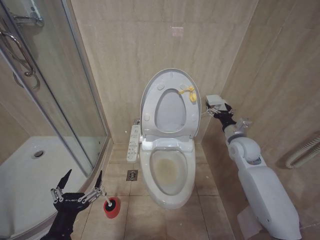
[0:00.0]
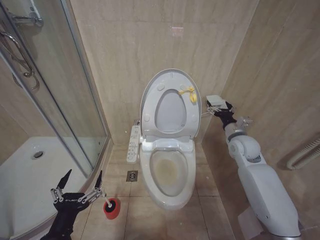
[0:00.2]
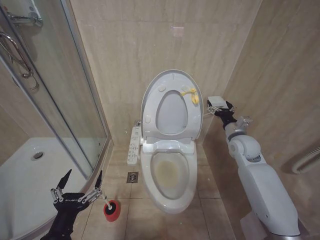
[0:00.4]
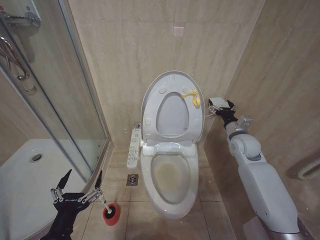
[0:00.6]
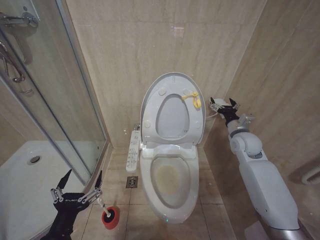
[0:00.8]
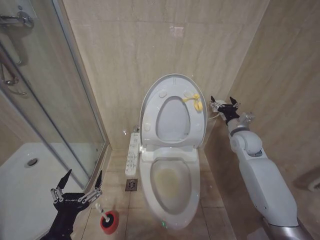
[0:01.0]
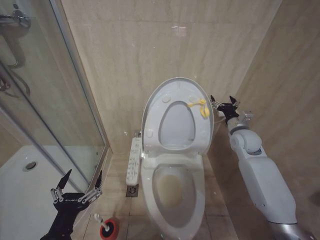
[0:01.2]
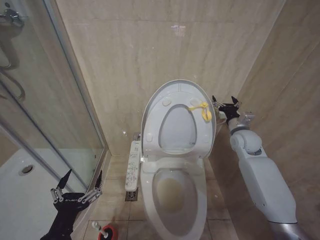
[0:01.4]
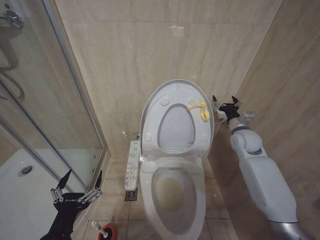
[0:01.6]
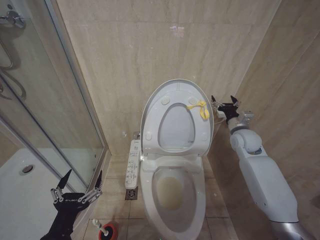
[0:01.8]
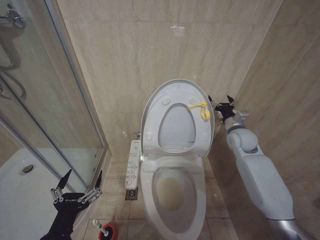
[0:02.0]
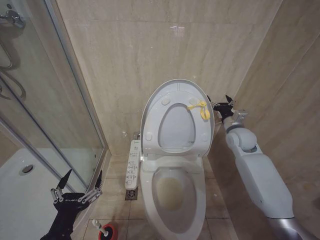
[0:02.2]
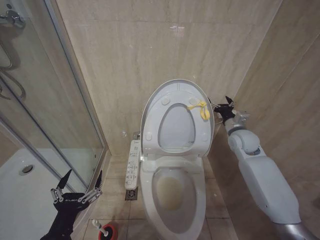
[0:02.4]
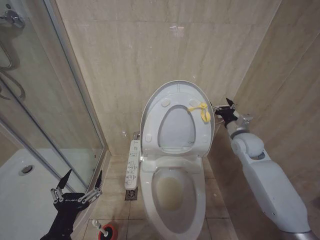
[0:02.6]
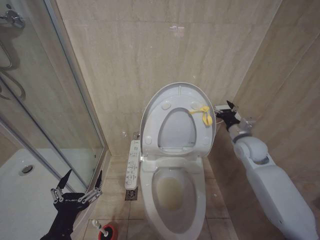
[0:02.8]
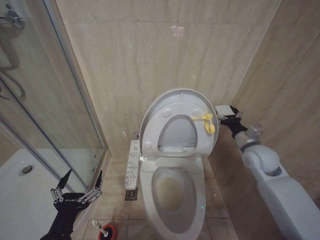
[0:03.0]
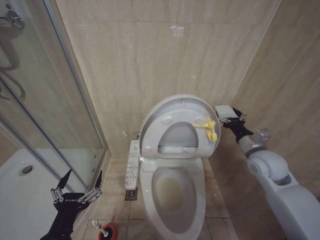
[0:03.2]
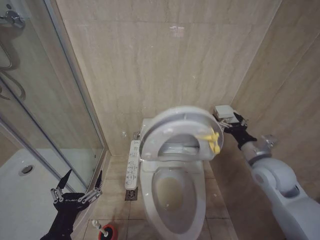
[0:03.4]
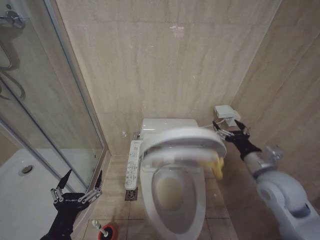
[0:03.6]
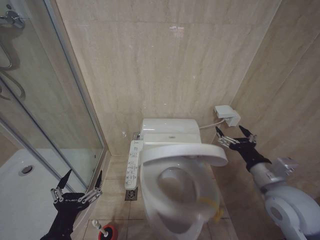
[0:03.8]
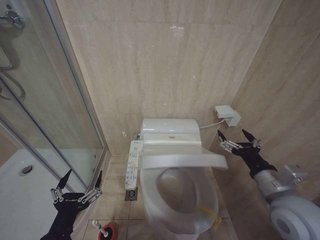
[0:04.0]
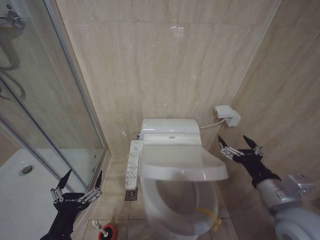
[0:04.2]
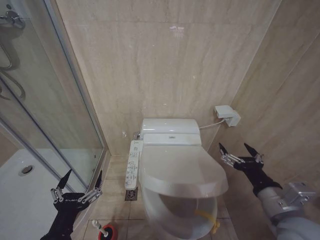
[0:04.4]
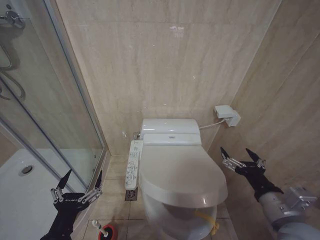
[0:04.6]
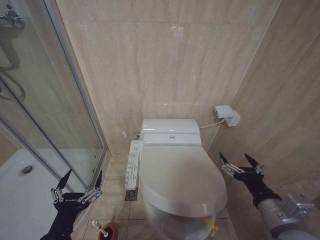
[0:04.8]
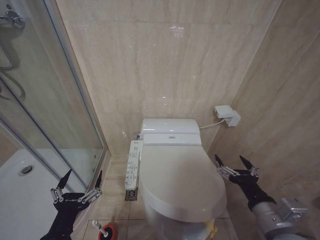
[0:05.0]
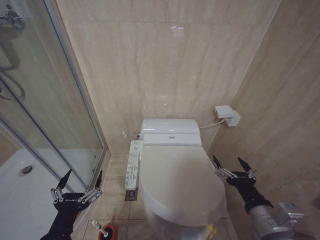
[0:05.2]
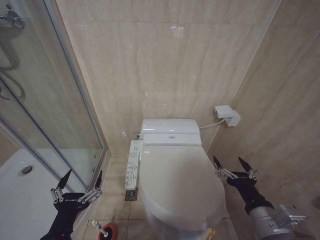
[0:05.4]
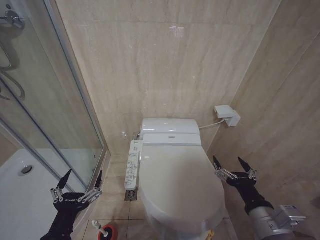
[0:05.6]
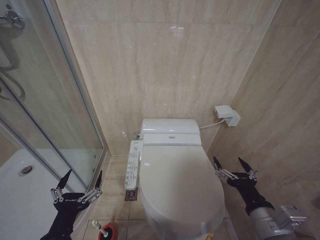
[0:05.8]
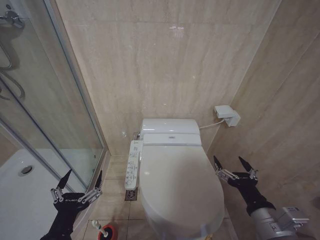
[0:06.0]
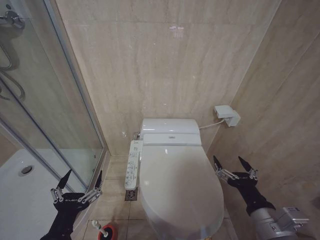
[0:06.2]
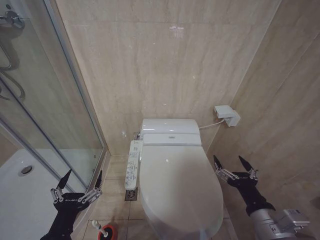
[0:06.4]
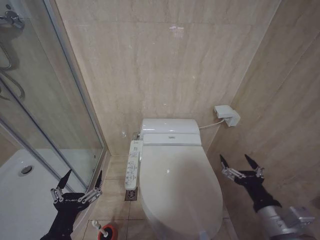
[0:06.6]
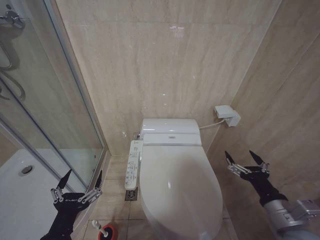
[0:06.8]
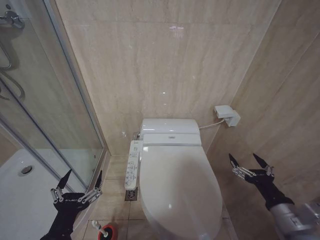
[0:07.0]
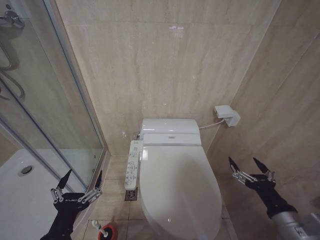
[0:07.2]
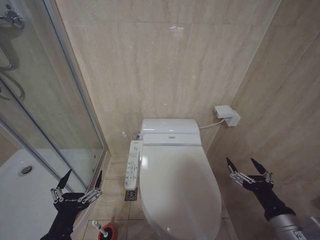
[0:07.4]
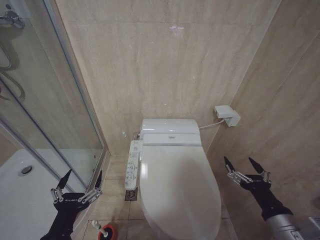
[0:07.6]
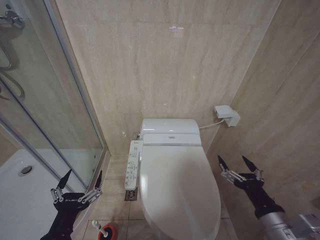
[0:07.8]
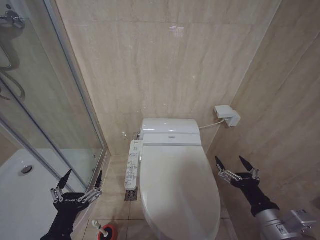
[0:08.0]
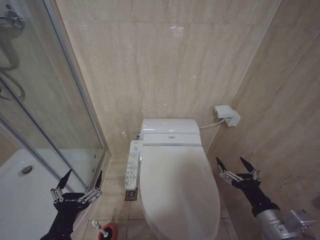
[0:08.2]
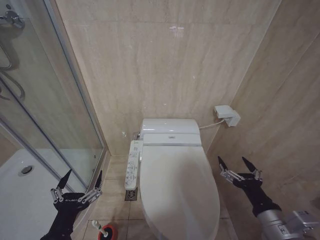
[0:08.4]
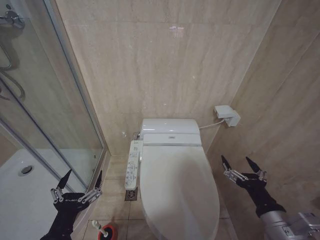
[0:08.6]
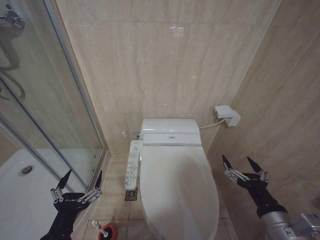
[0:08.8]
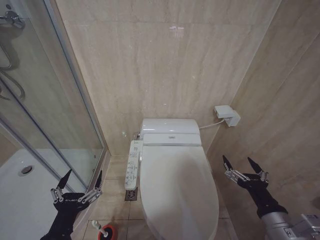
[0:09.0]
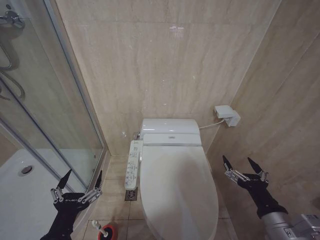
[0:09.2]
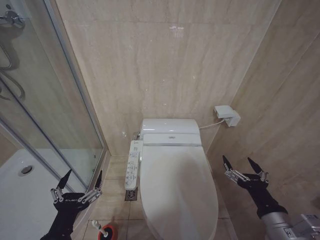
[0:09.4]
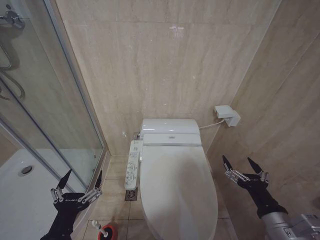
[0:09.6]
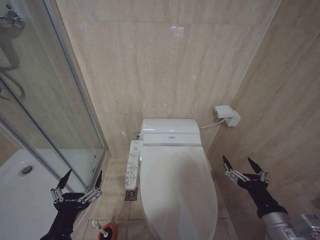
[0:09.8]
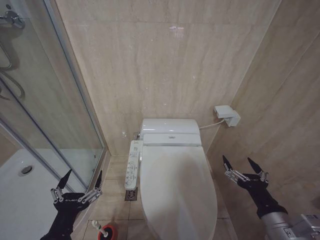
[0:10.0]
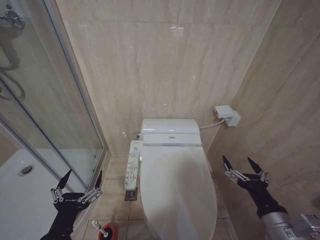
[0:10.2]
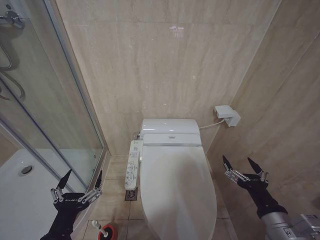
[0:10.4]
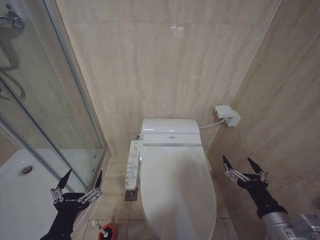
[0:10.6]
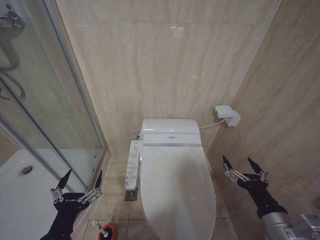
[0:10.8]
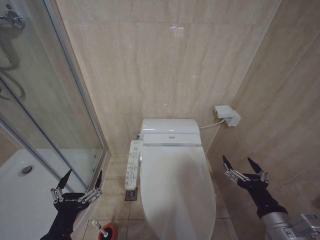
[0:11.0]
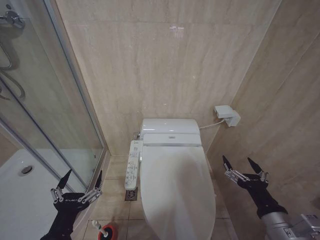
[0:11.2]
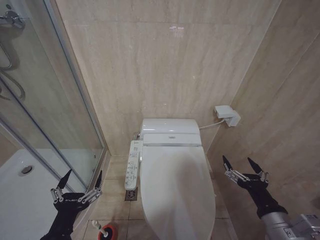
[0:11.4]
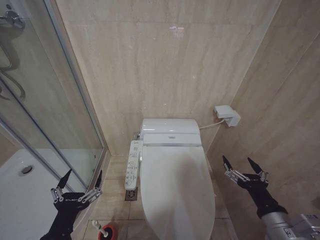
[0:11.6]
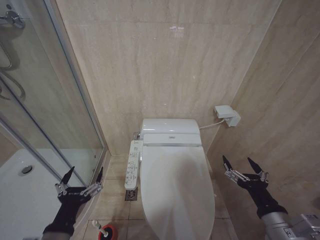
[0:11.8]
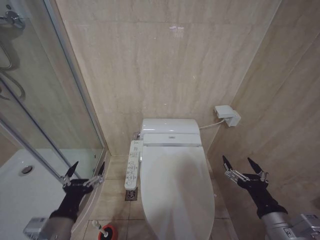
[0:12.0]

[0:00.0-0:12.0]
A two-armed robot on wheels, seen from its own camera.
Task of the whole recording: Open the toilet lid, clean the toilet bowl with a toilet brush, close the toilet lid, and flush.
0:01.6 to 0:03.0: The right gripper travels backward by roughly 5 cm.
0:03.0 to 0:04.4: The right gripper travels backward by some 20 cm.
0:04.4 to 0:06.0: The right gripper shifts by roughly 5 cm.
0:07.6 to 0:09.0: The grippers stay close to where they were, moving slightly.
0:09.0 to 0:10.4: Both grippers stay put.
0:10.4 to 0:12.0: The grippers make only small movements.

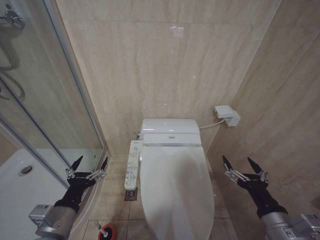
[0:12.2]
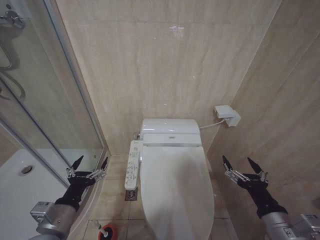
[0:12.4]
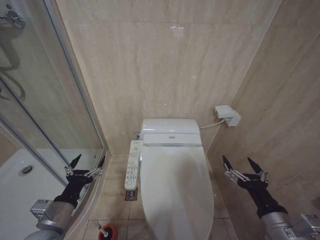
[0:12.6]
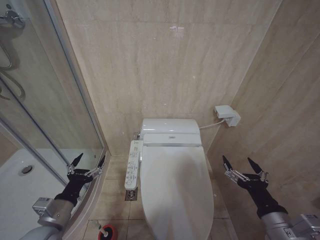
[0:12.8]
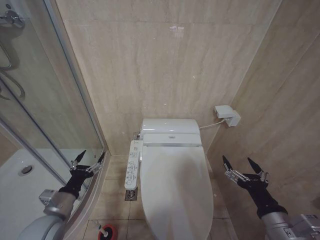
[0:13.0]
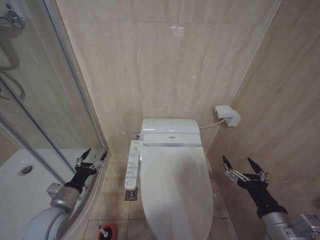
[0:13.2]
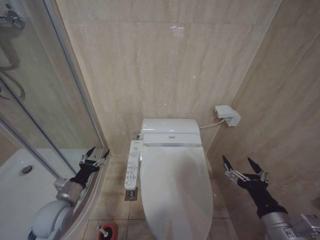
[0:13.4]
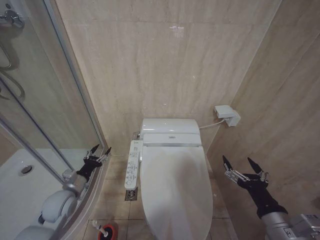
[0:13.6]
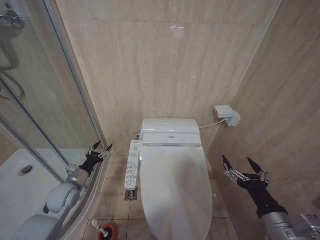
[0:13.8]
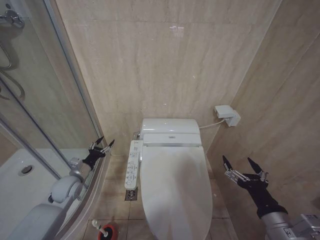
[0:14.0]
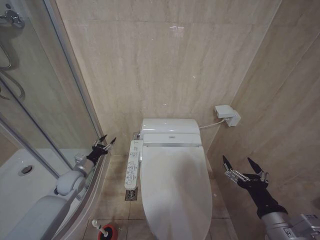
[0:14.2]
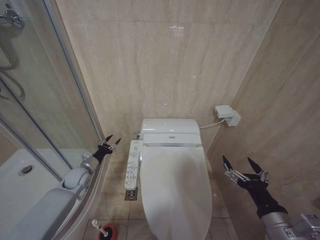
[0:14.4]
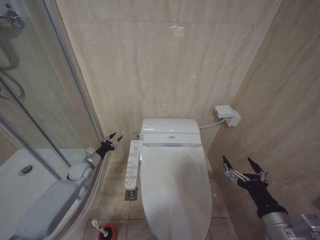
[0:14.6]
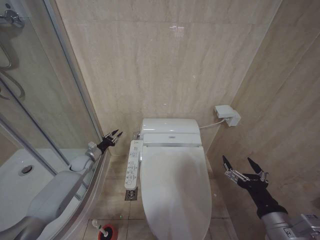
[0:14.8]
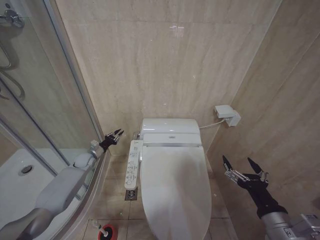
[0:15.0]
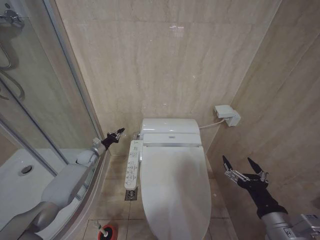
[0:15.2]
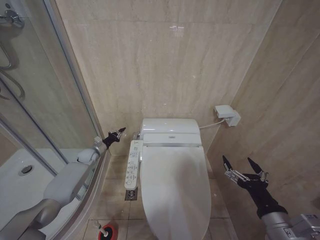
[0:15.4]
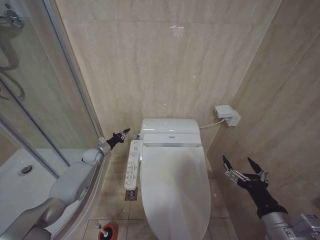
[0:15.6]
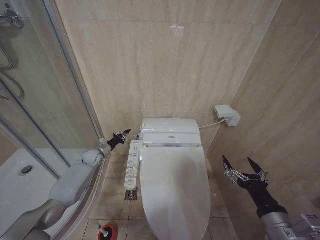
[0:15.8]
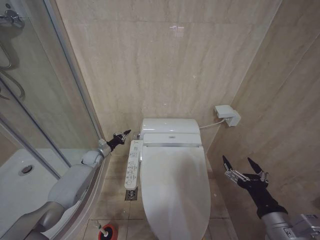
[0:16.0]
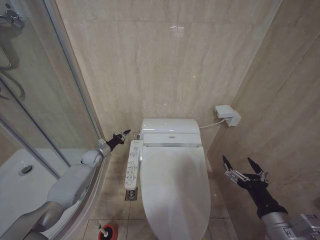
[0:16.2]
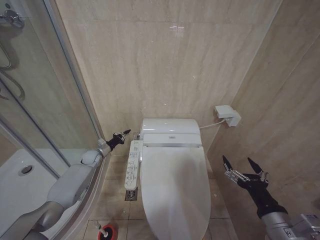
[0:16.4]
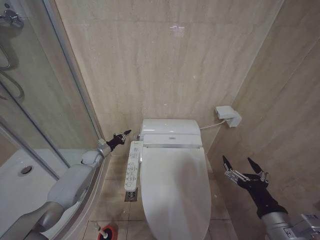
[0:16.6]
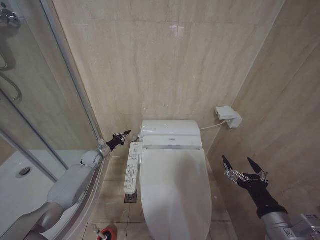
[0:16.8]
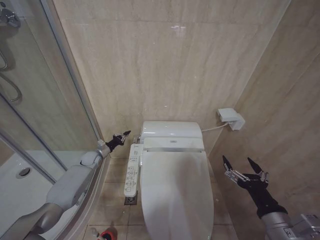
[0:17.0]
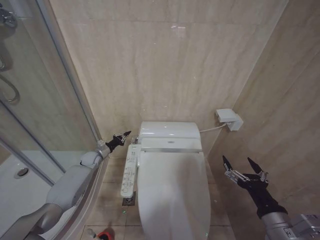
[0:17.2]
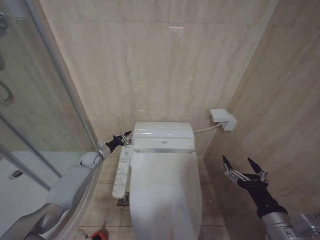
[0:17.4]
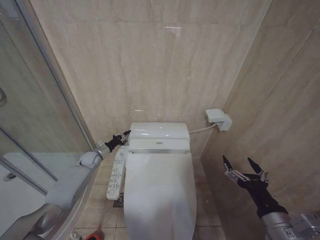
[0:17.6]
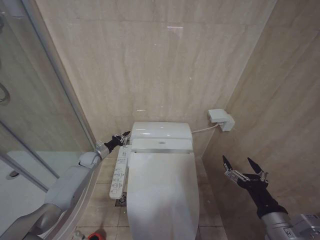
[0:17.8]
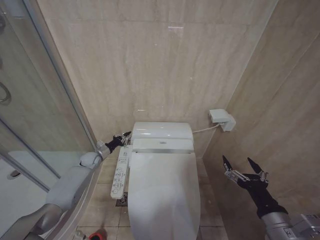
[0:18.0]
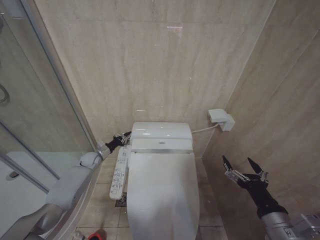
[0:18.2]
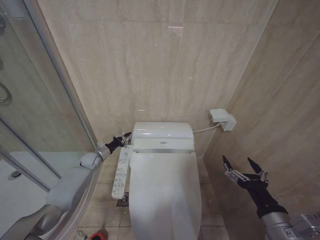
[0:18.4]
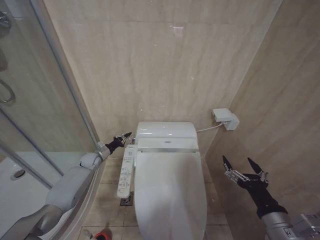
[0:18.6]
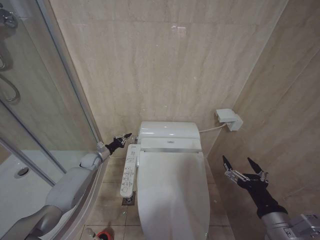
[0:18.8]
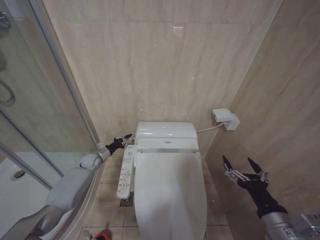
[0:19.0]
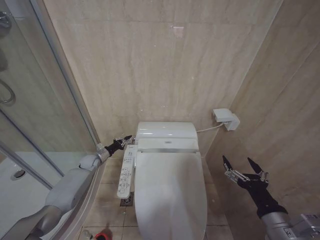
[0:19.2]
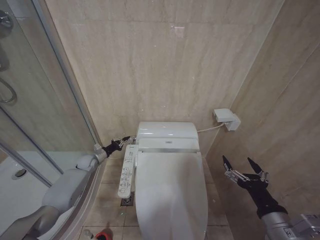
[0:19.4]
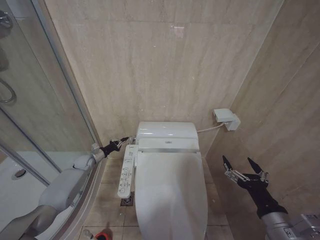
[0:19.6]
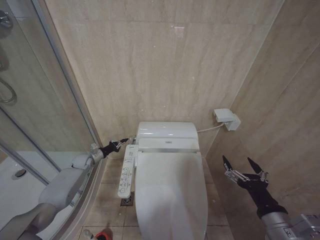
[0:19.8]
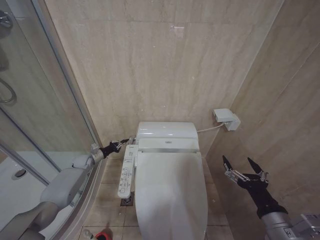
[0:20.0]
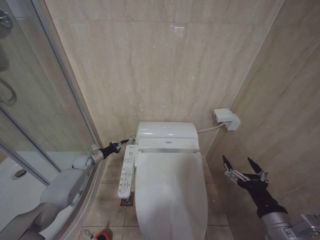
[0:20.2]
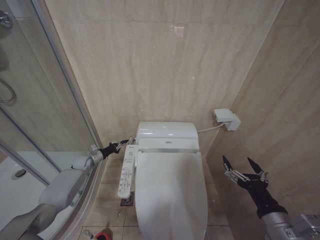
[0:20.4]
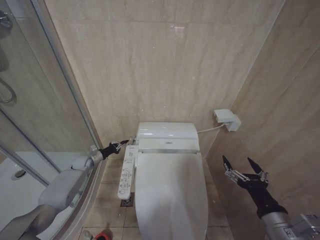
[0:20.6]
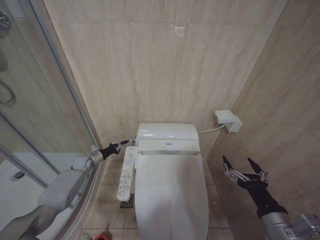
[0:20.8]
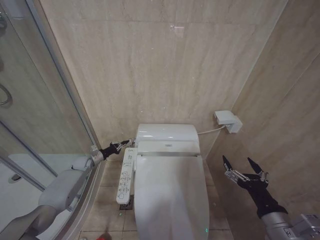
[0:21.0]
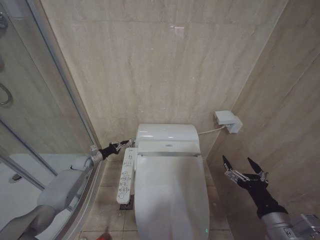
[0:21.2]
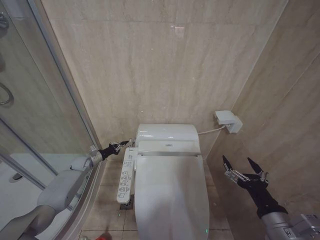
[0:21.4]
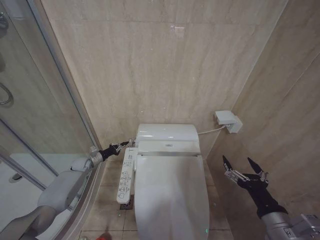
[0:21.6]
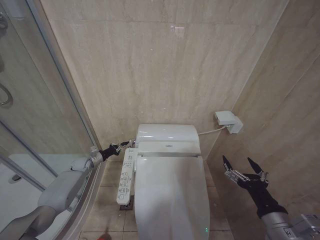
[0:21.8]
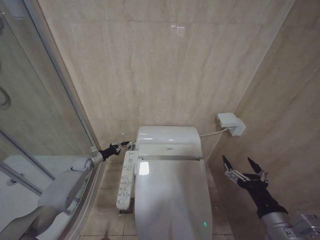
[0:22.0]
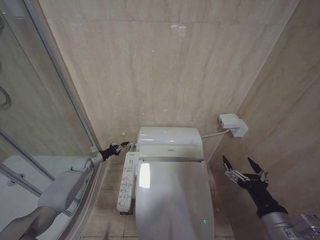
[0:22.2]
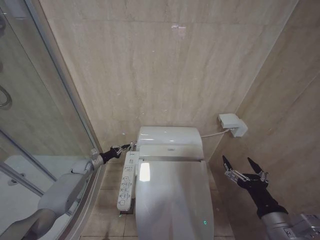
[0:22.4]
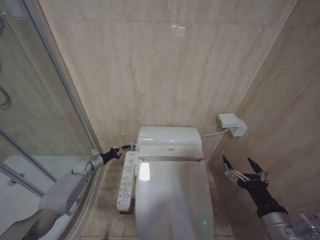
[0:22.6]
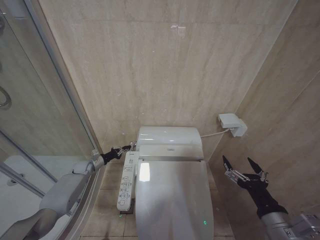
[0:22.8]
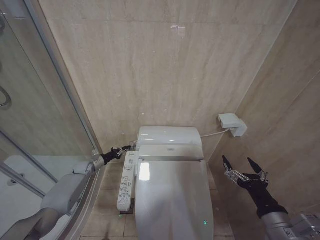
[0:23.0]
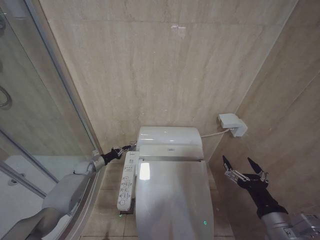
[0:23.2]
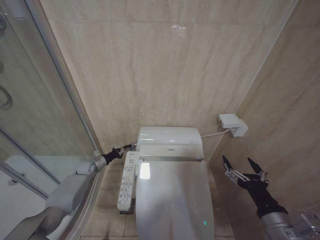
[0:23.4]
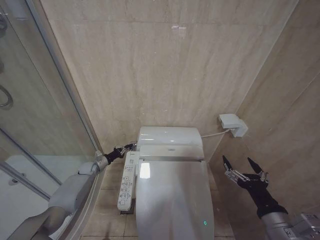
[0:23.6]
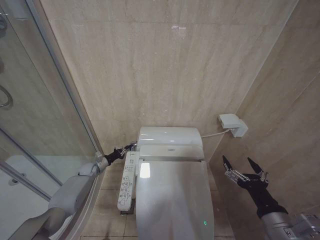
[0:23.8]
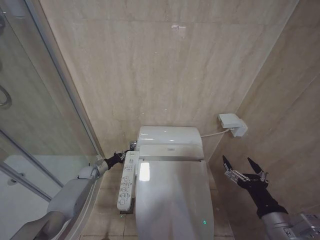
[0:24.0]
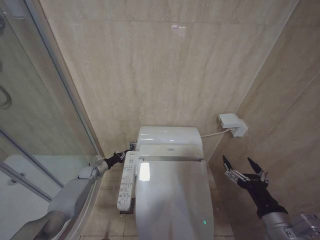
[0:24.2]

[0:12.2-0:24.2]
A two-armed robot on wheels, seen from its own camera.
Task of the whole recording: Open the toilet lid, clean the toilet bowl with a toilet brush, close the toilet lid, and flush.
0:12.2 to 0:13.8: The left gripper heads forward, downward and to the left, covering roughly 20 cm.
0:13.8 to 0:15.2: The left gripper moves forward, roughly 20 cm, and closes its fingers.
0:15.2 to 0:16.6: There are only small adjustments of the grippers.
0:16.6 to 0:18.2: The two grippers keep their place.
0:18.2 to 0:19.8: The grippers make only small movements.
0:19.8 to 0:21.2: Both grippers stay put.
0:21.2 to 0:22.6: The grippers make only small movements.
0:22.6 to 0:24.2: The grippers stay close to where they were, moving slightly.
